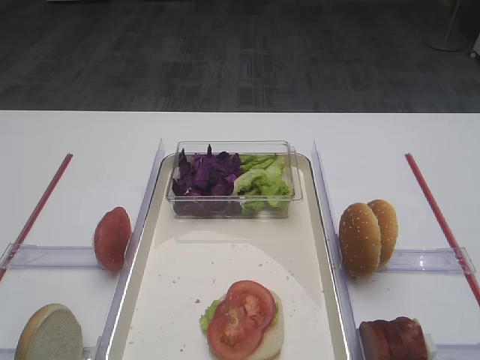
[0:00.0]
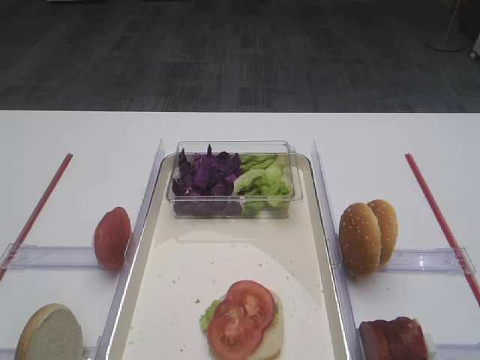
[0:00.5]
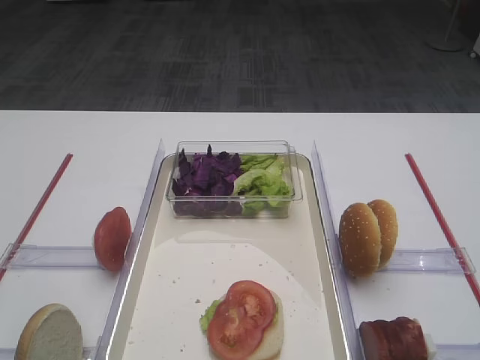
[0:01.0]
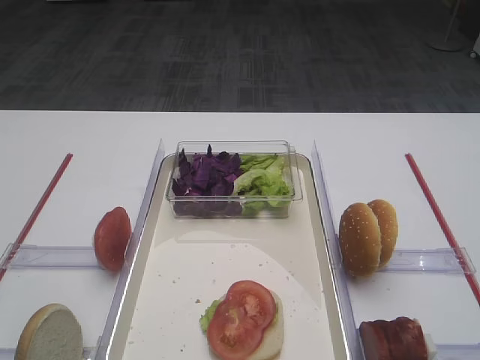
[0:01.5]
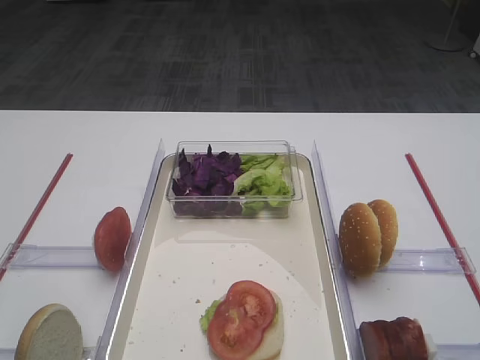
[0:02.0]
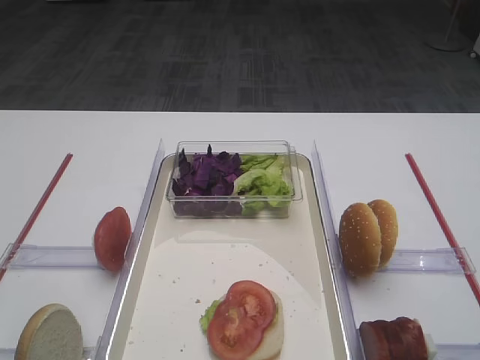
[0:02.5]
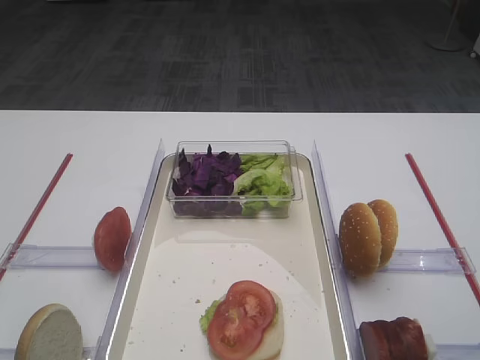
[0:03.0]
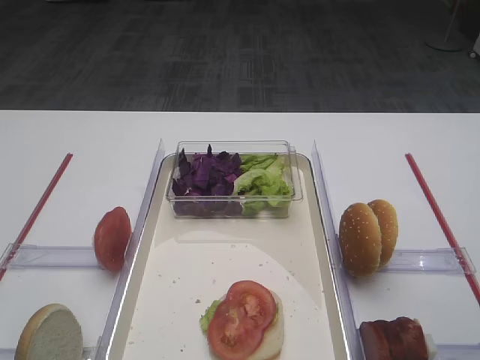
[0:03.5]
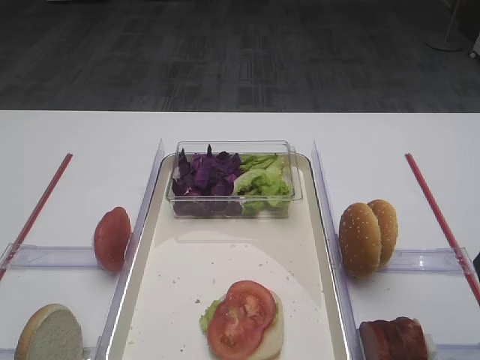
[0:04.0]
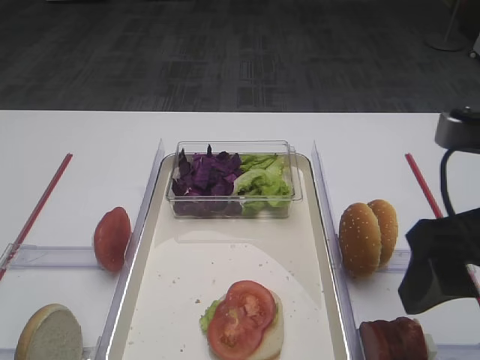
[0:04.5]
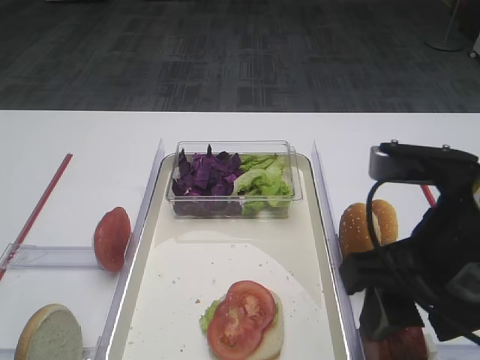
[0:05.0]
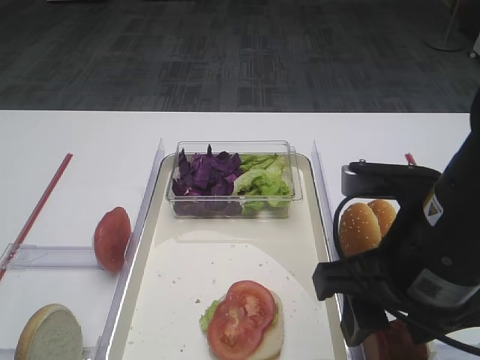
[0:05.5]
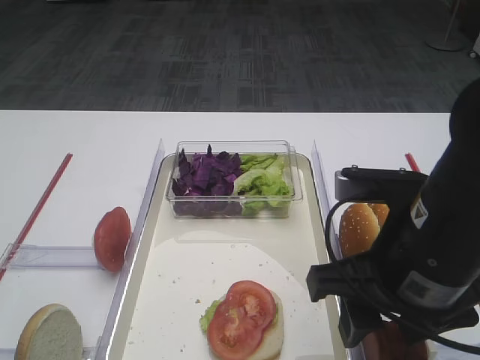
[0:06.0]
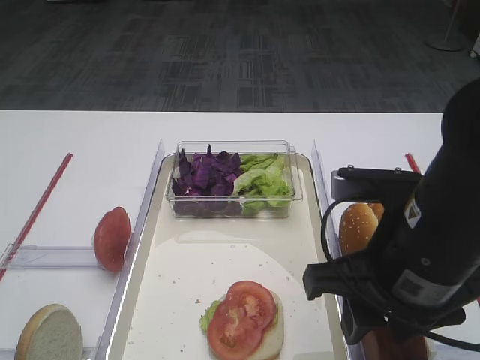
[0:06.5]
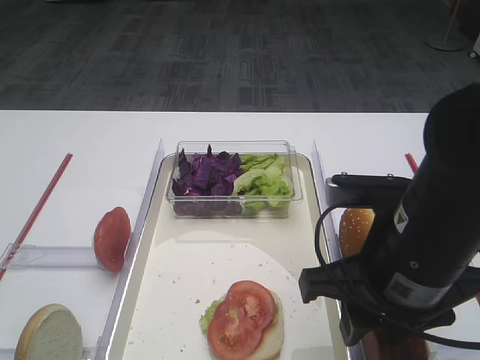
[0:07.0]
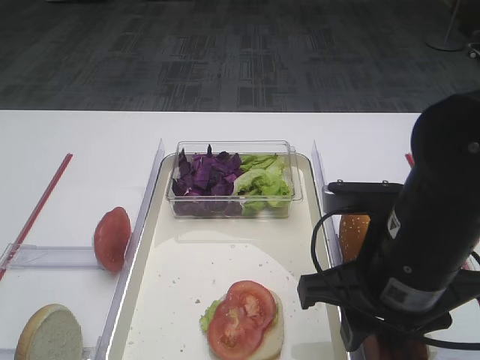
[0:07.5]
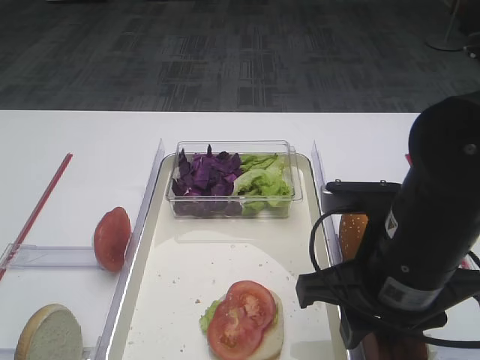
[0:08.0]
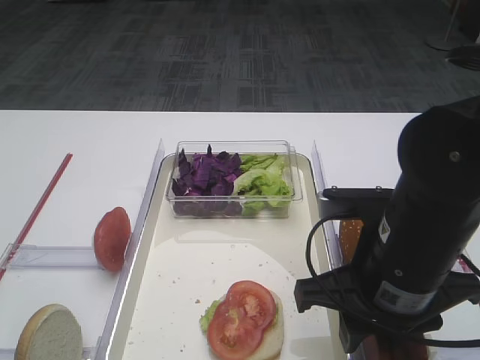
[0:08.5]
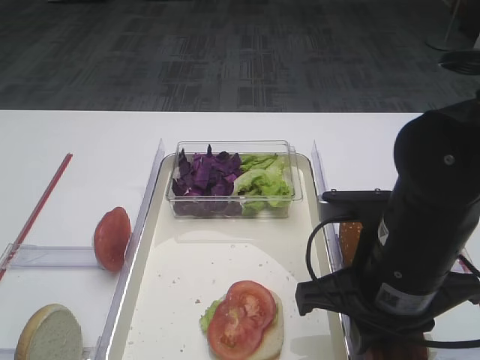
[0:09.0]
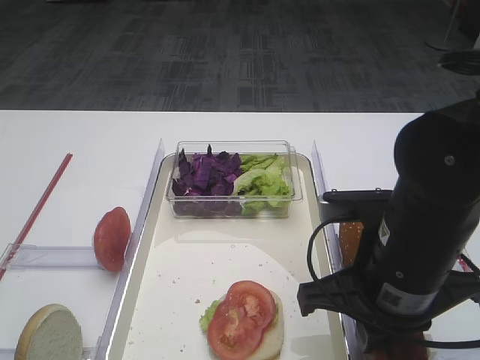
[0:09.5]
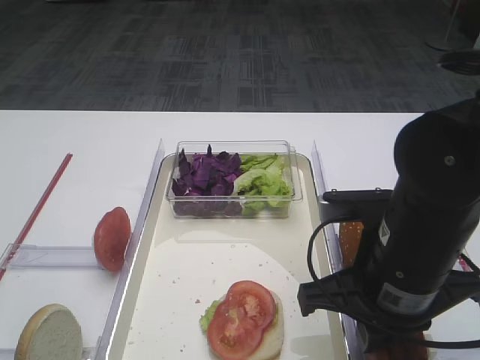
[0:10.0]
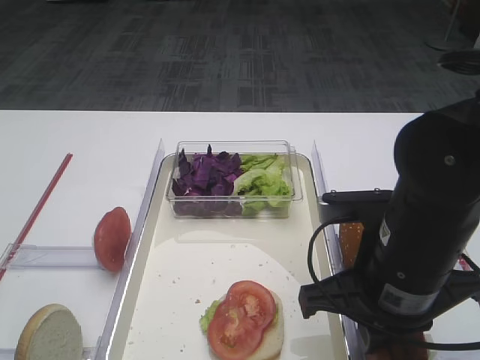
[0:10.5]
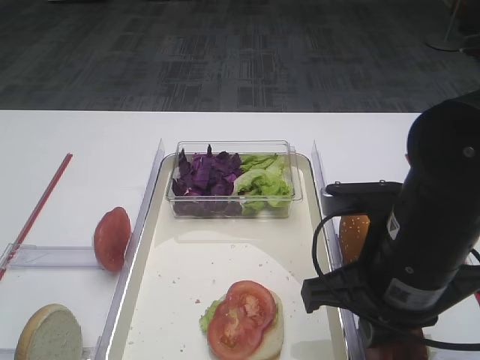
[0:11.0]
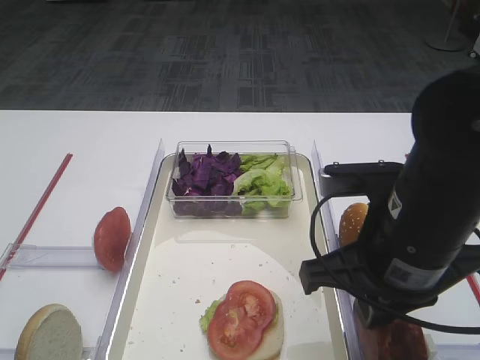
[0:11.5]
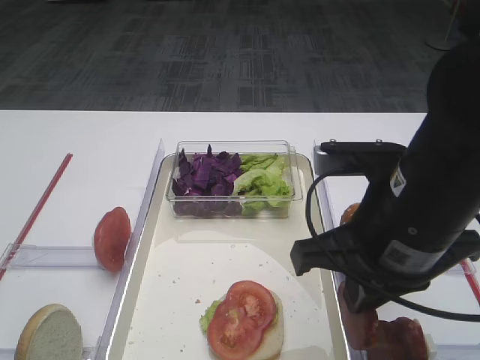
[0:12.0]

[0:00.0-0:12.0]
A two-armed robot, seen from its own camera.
Step, 0.0 to 11.5 s: Pick up the cutlet with the right gripper.
4.0 to 6.0 s: The right gripper travels to the left and downward by approximately 15 cm.
6.0 to 8.0 s: The grippers move only a little.
8.0 to 10.0 s: The right gripper closes.
10.0 to 12.0 s: The grippers make only small movements.

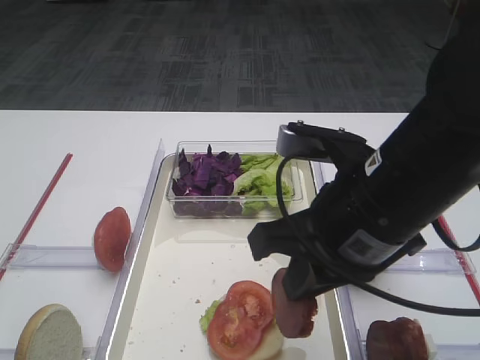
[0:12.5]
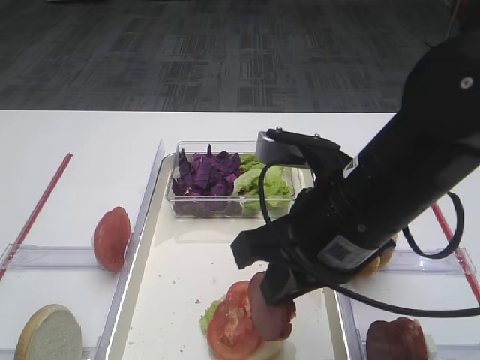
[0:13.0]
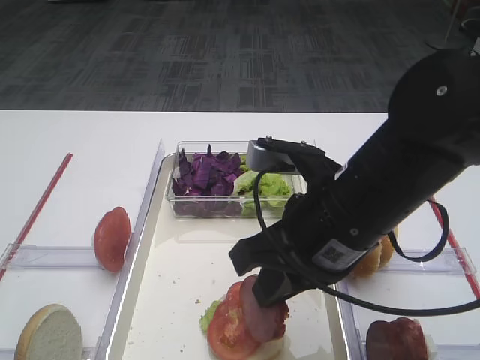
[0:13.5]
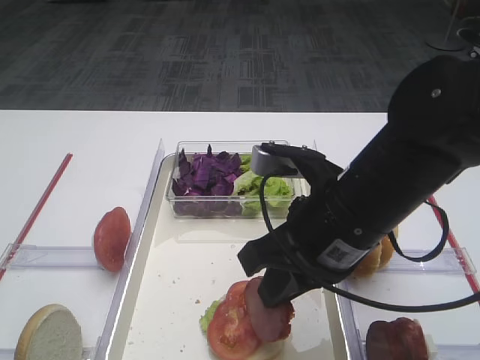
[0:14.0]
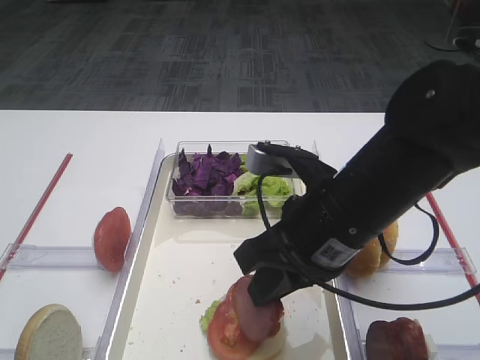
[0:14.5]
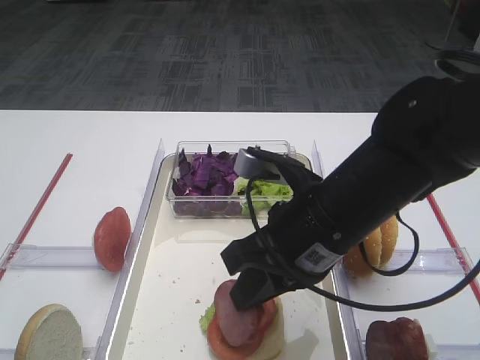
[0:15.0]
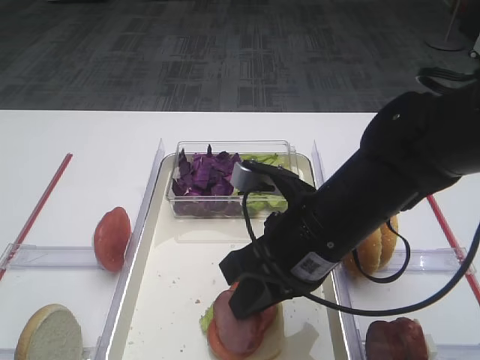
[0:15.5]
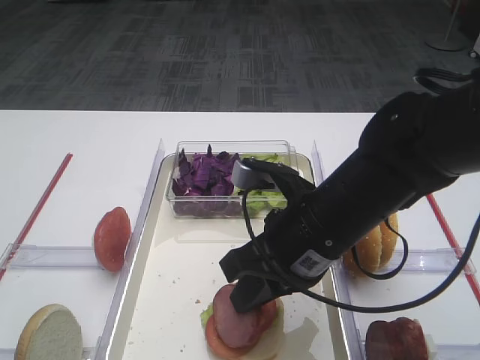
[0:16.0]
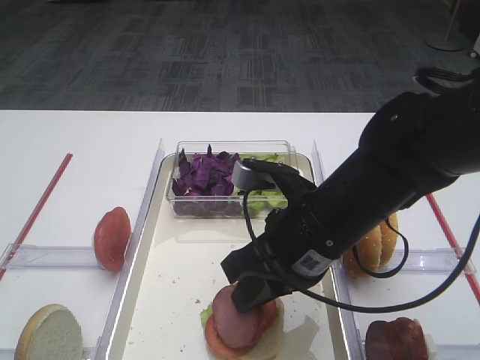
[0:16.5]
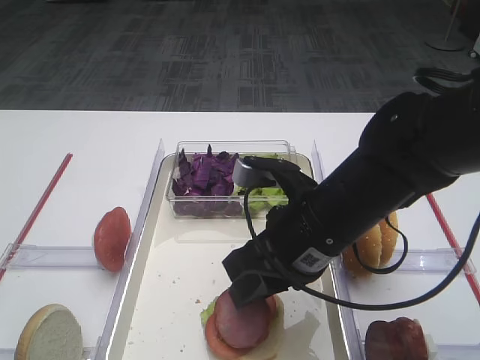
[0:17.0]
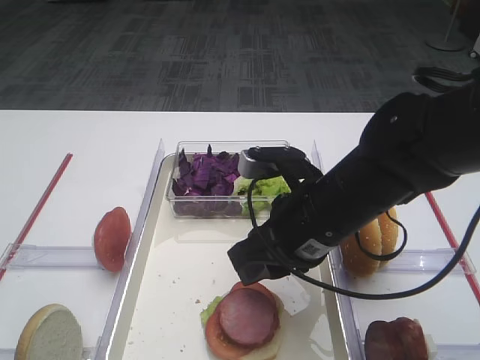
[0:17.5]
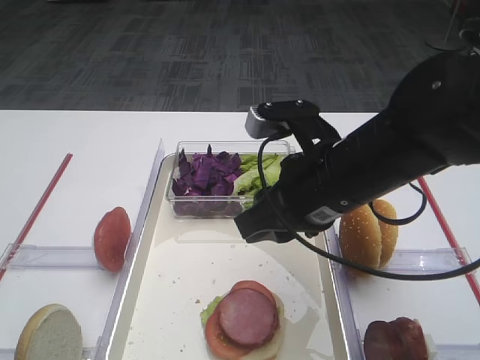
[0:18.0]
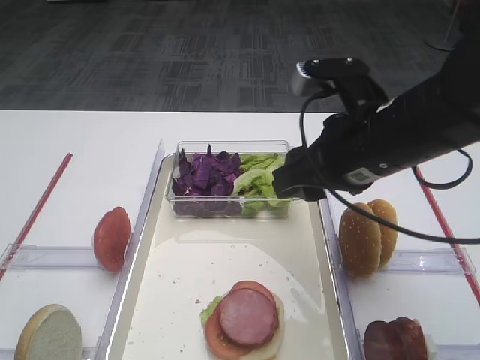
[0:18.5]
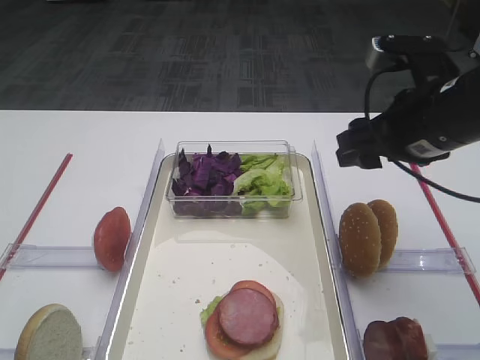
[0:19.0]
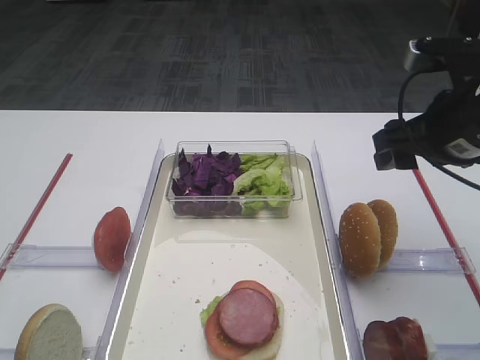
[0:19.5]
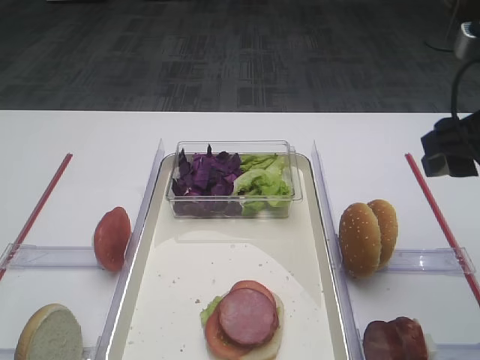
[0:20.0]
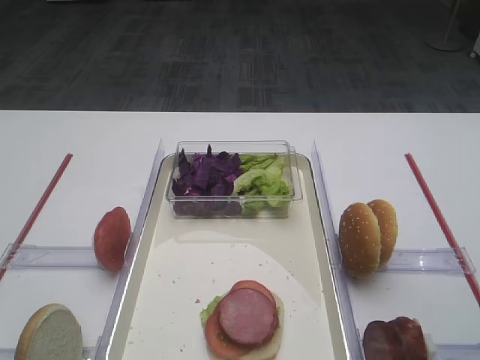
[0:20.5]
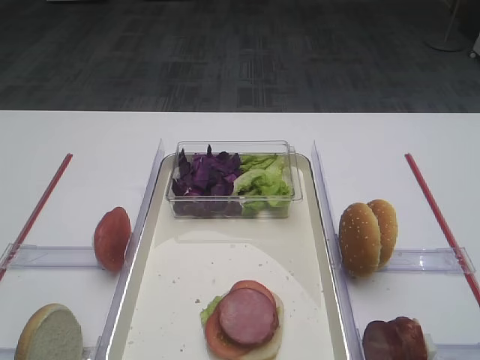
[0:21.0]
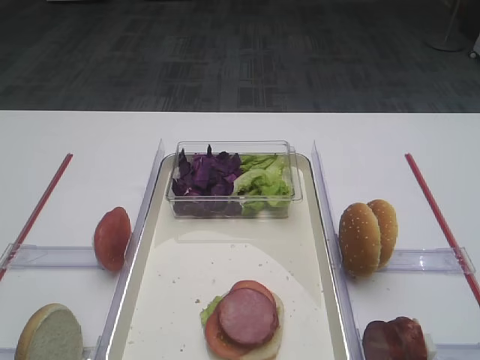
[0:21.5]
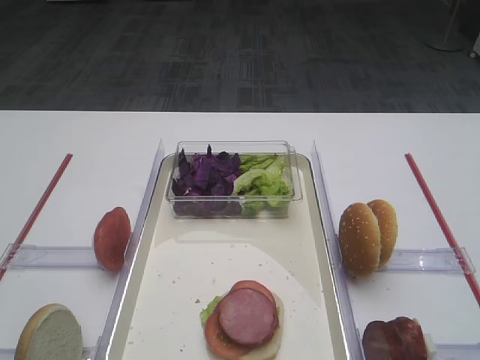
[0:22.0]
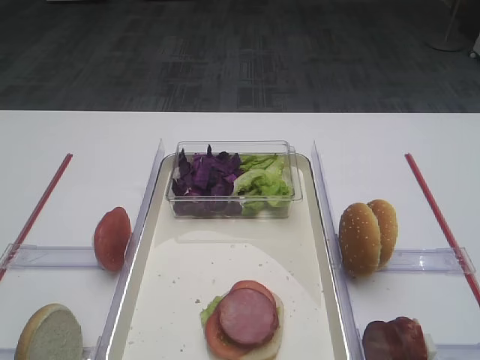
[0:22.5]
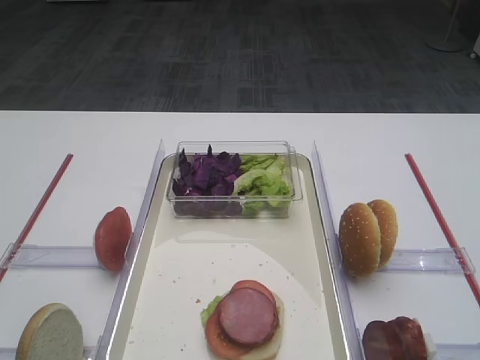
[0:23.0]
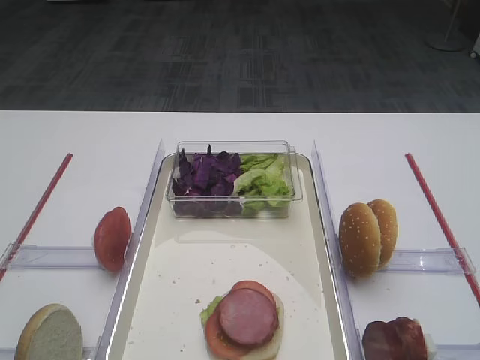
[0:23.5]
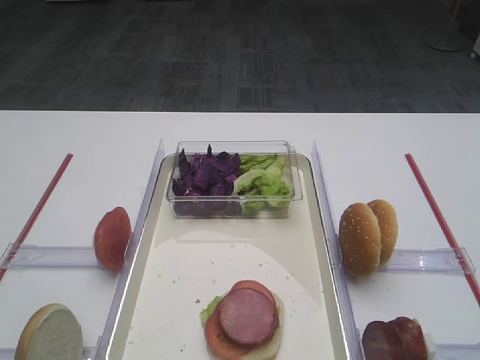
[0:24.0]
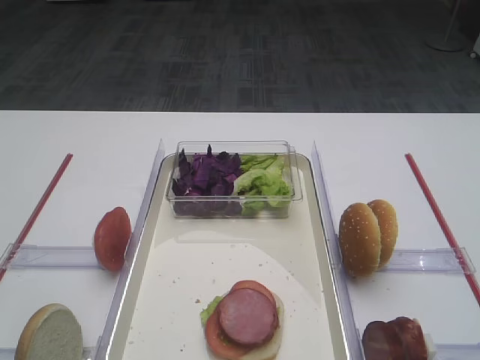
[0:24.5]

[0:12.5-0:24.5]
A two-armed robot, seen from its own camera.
Step, 12.5 to 17.5 s: Place the cutlet on the tomato slice with the right gripper.
12.5 to 14.5 s: The grippers make only small movements.
14.5 to 16.5 s: The grippers move only a little.
16.5 to 18.5 s: The right gripper shifts some 5 cm upward, and opens its fingers.
18.5 to 20.5 s: The right gripper goes approximately 20 cm to the right, backward and upward.

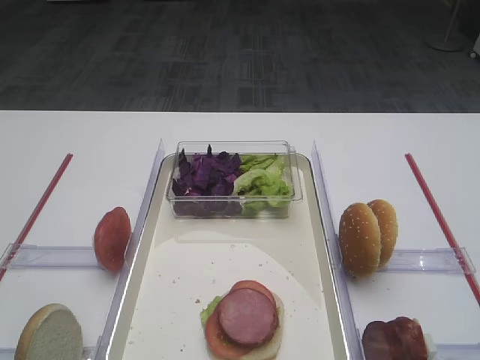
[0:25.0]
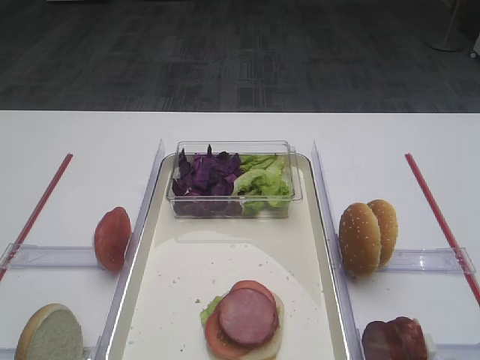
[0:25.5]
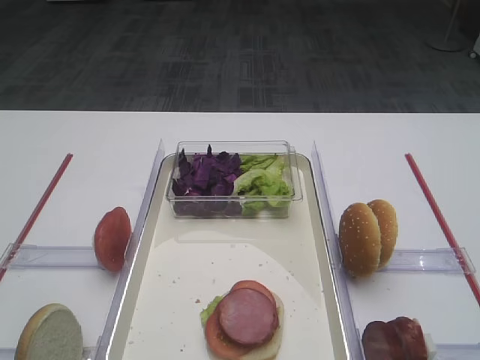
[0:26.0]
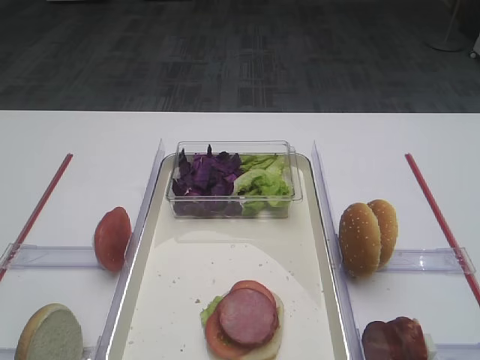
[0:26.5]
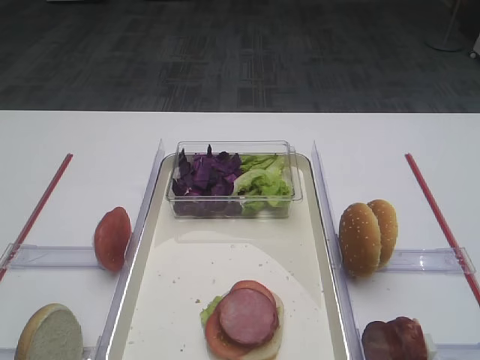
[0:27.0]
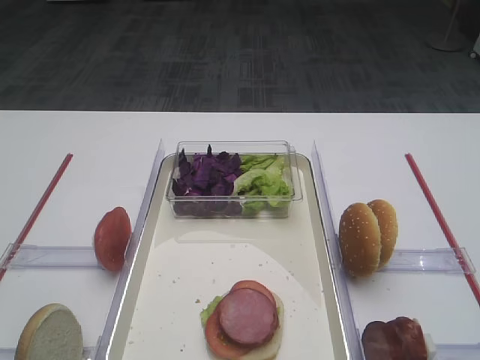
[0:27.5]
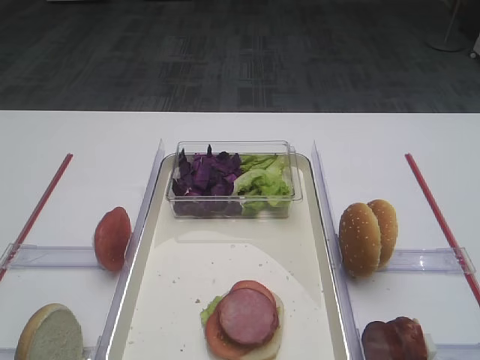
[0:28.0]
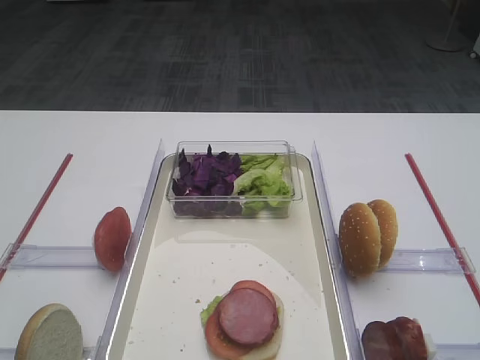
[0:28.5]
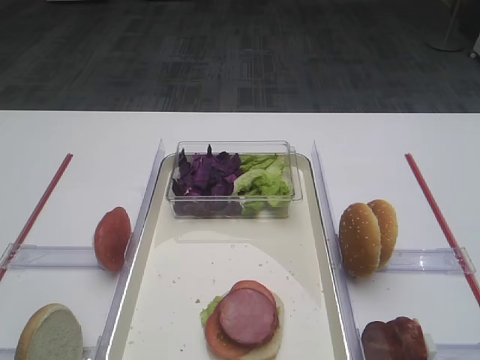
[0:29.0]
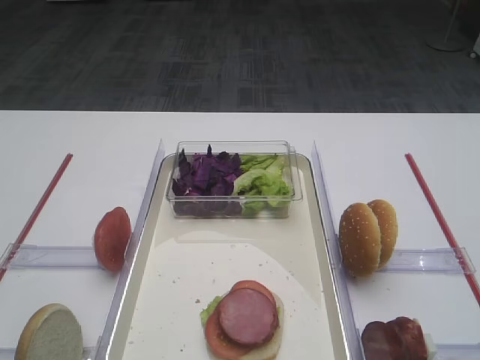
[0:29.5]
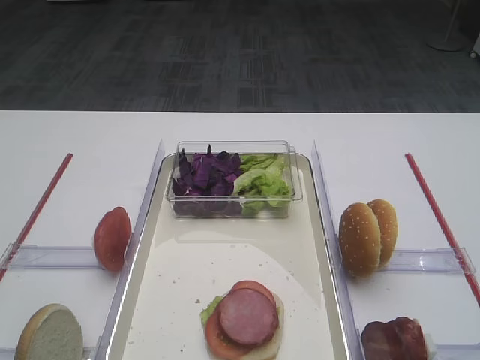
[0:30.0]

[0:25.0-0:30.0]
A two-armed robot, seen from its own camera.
25.0 to 30.0 s: The two grippers keep their place.
